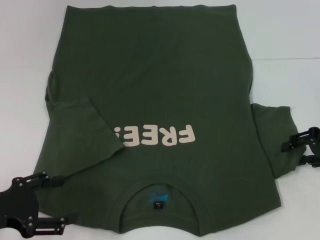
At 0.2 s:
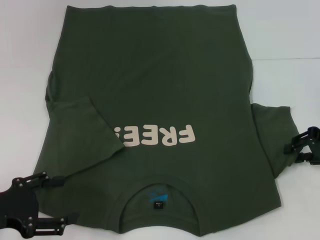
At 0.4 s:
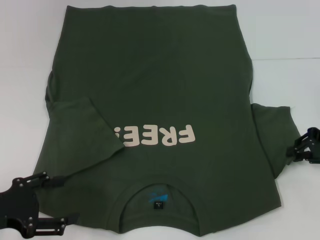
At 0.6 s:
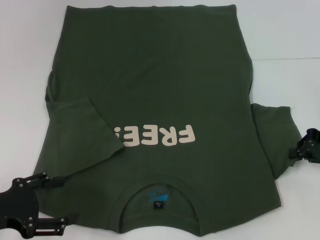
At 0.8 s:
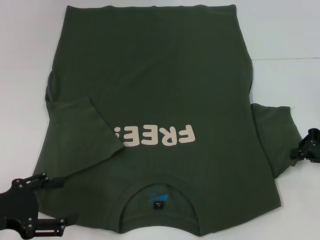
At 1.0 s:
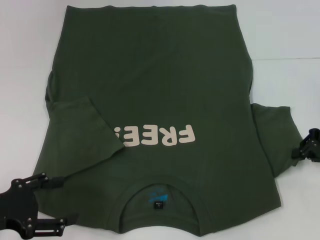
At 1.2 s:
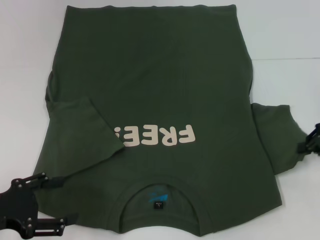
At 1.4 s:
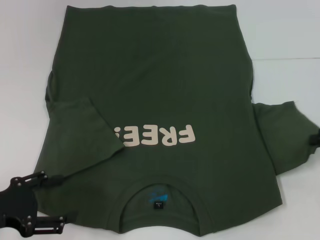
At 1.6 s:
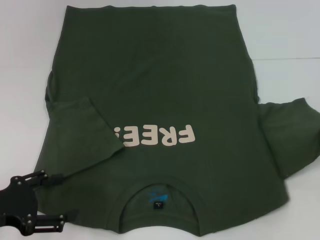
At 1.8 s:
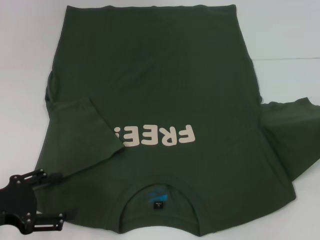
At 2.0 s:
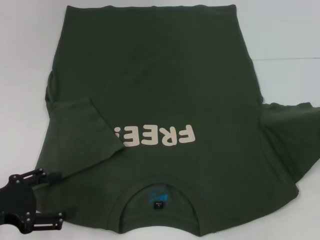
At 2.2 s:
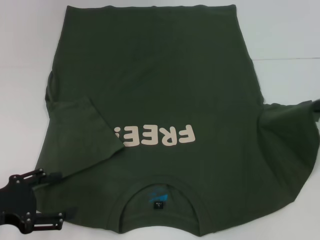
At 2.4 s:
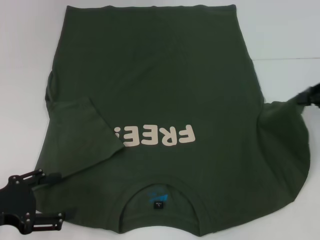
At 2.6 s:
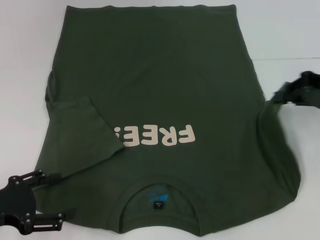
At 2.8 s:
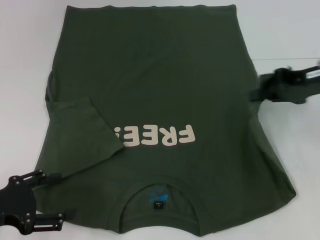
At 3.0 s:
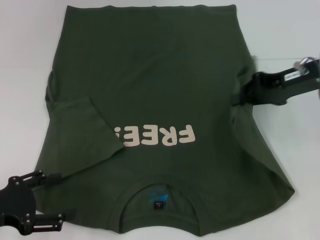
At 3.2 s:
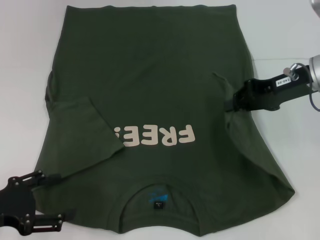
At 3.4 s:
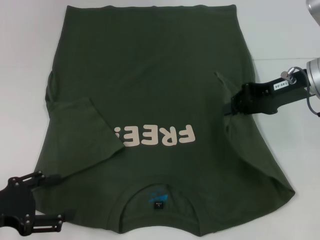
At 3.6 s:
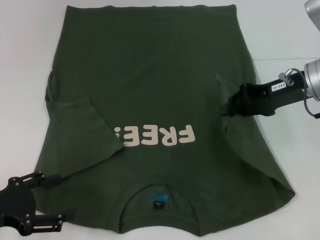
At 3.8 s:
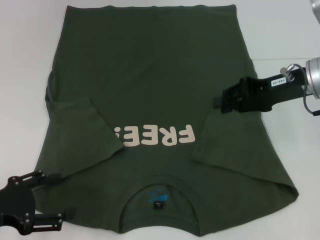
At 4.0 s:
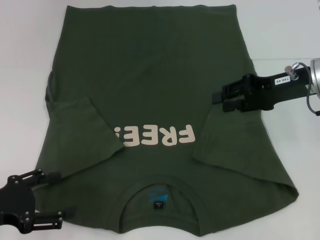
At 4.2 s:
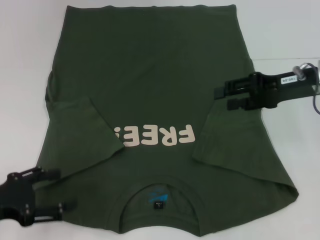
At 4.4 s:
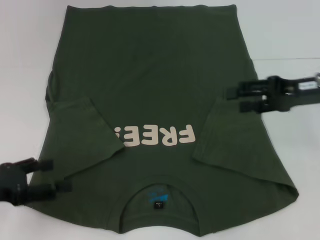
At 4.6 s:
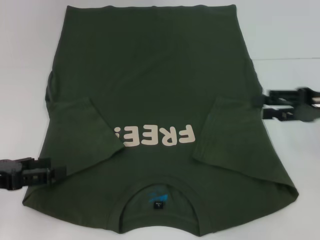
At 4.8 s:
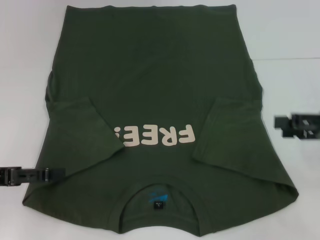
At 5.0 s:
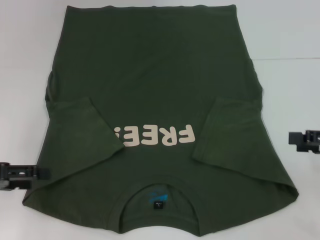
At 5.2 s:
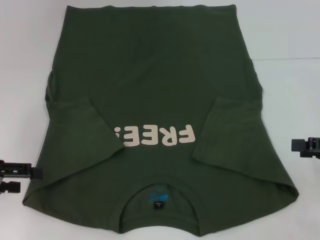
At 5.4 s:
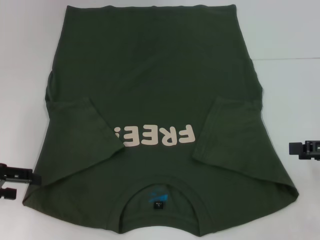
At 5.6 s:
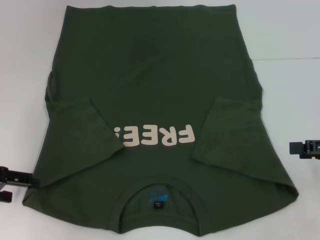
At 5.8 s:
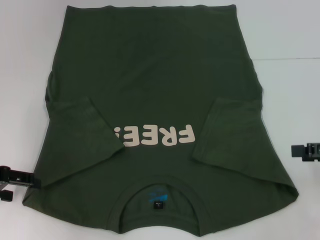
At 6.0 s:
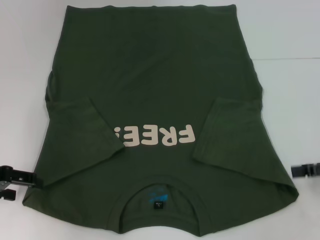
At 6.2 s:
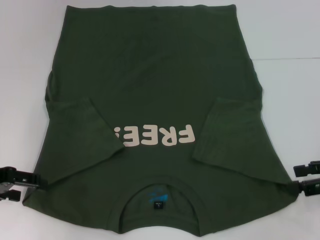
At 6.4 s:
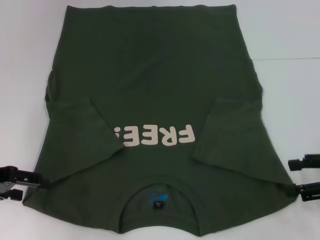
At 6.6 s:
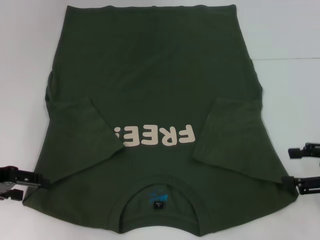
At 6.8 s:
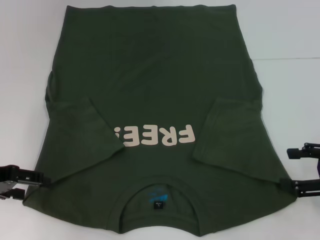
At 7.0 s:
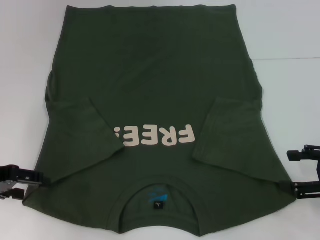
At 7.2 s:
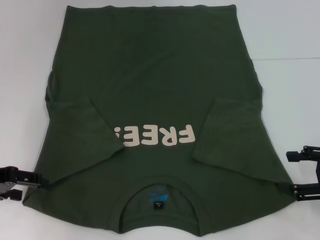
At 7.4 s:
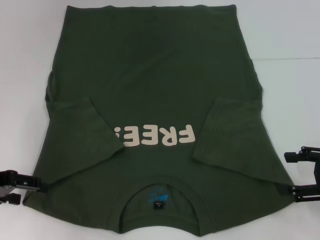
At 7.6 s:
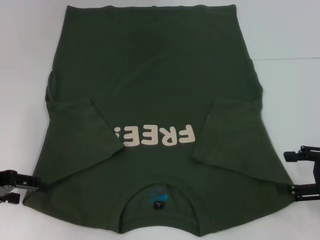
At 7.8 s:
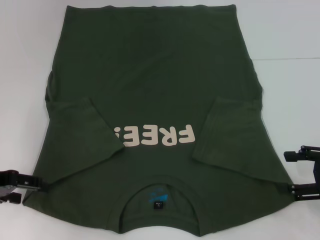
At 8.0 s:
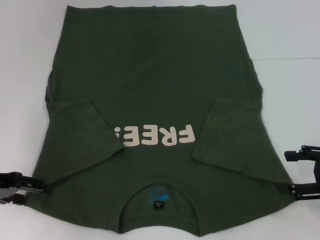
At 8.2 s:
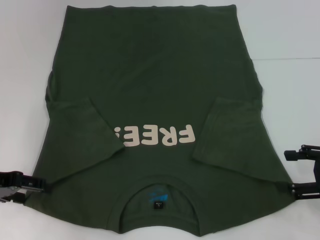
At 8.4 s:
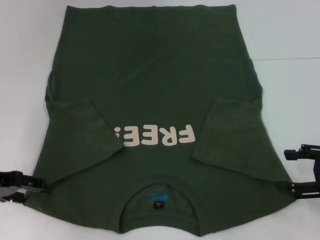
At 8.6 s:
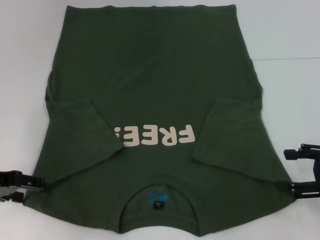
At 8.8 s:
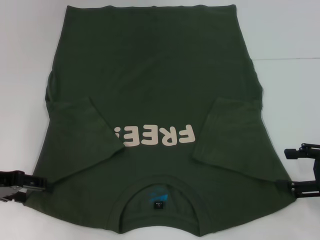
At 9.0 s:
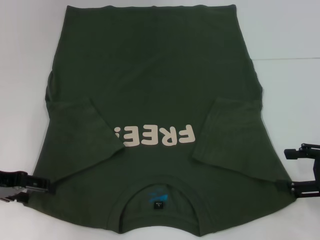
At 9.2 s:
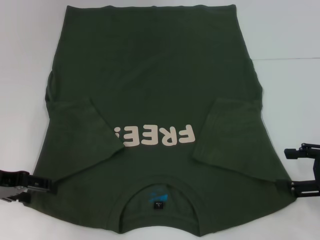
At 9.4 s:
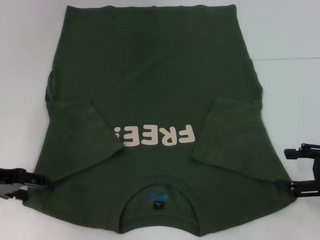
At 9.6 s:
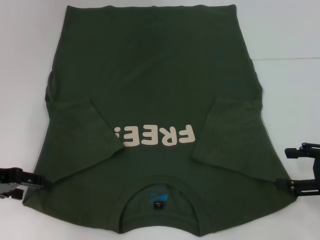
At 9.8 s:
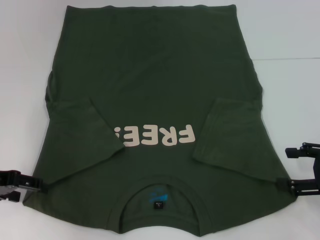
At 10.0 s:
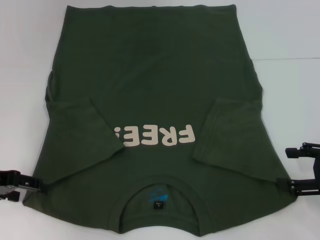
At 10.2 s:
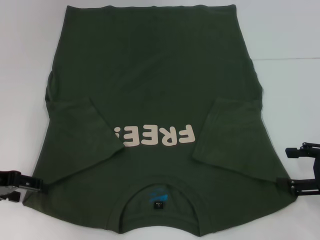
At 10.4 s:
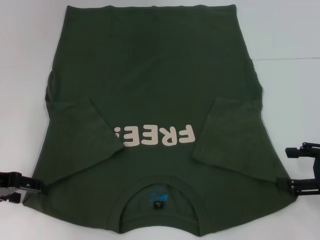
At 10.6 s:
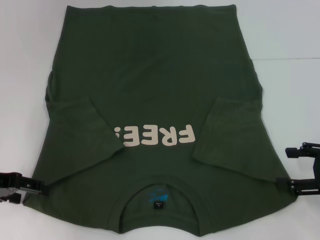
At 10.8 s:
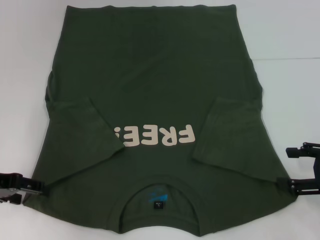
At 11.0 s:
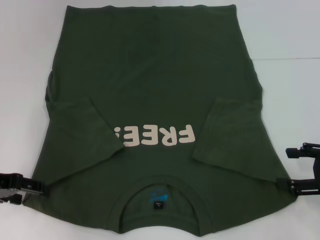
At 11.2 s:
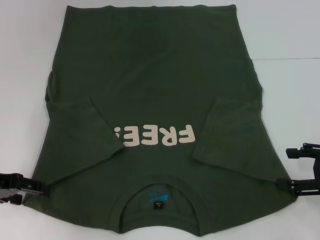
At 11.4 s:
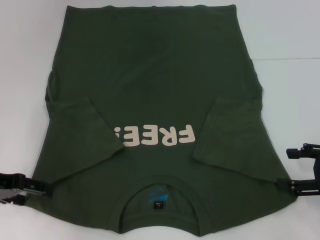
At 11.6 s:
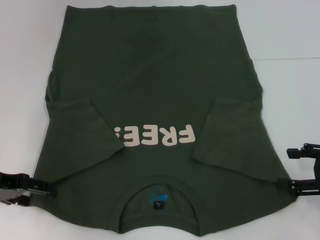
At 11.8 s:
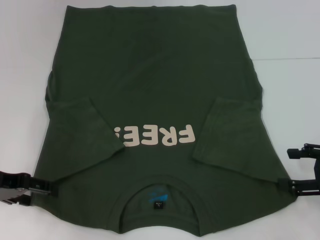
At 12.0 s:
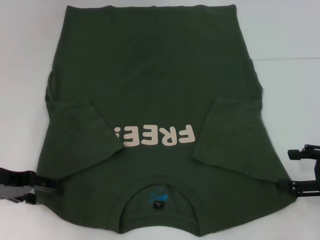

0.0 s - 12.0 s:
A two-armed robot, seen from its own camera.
Step, 0.0 s - 3.6 s: Fold the bottom right sleeve with your right hand.
0.0 s - 1.6 s: The right gripper changes place by about 5 cm, and closes its fingers.
1.6 s - 3.0 s: The right gripper goes some 15 cm to the left and forward.
3.0 s - 4.4 s: The right gripper opens up.
4.4 s - 6.0 s: The right gripper heads to the right and backward, covering about 10 cm; the left gripper goes some 5 cm forward.
7.6 s - 9.0 s: The grippers stay close to where they were, moving slightly.
9.0 s - 10.4 s: Both grippers stay put.
10.4 s - 12.0 s: The grippers move only a little.

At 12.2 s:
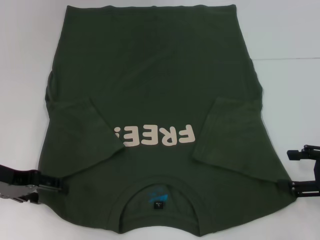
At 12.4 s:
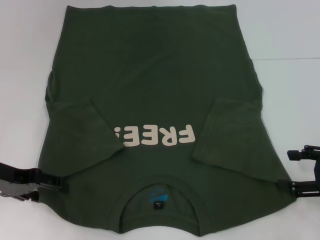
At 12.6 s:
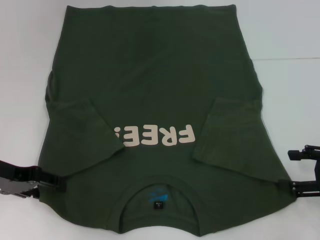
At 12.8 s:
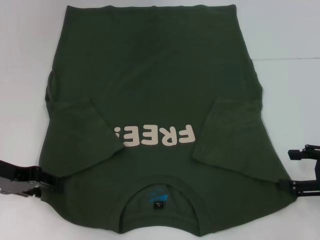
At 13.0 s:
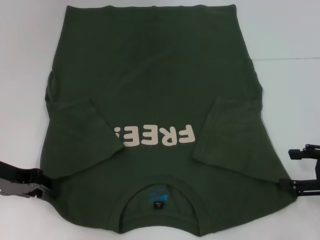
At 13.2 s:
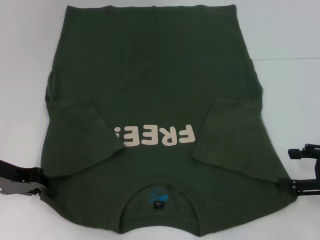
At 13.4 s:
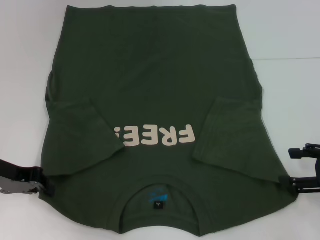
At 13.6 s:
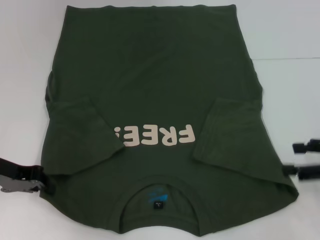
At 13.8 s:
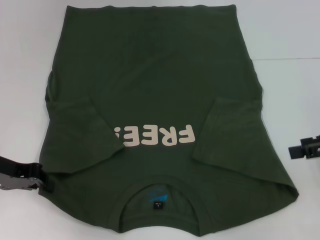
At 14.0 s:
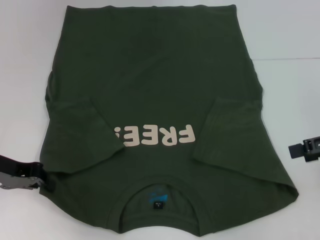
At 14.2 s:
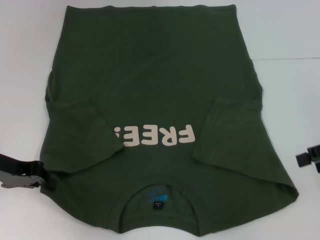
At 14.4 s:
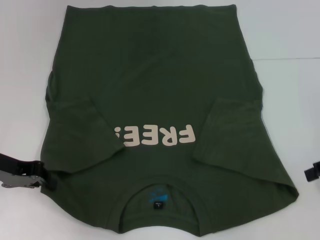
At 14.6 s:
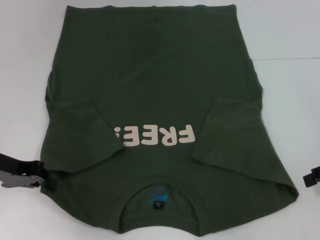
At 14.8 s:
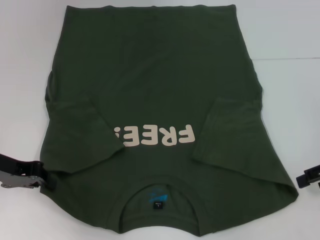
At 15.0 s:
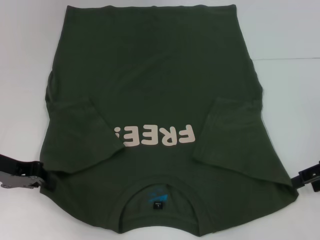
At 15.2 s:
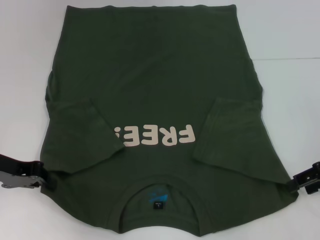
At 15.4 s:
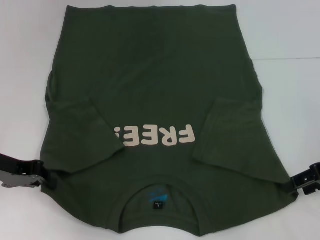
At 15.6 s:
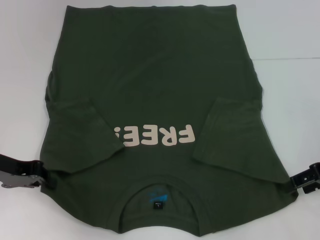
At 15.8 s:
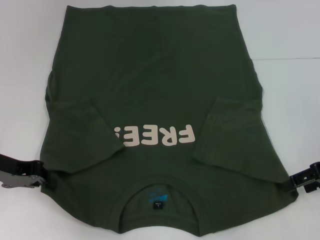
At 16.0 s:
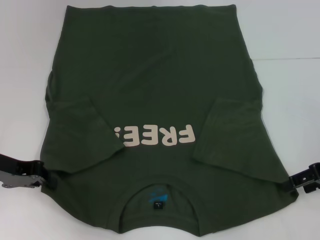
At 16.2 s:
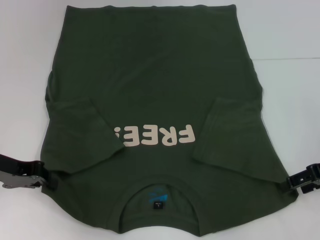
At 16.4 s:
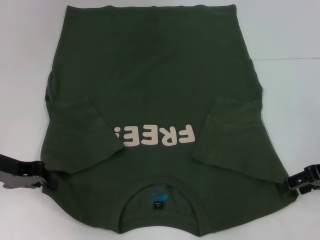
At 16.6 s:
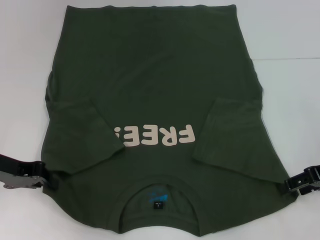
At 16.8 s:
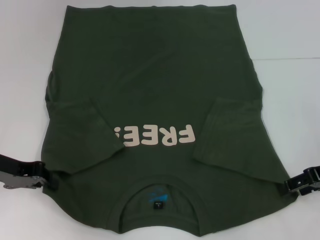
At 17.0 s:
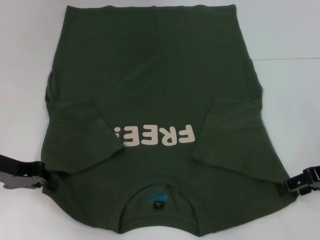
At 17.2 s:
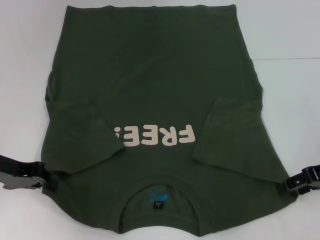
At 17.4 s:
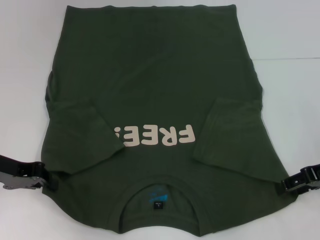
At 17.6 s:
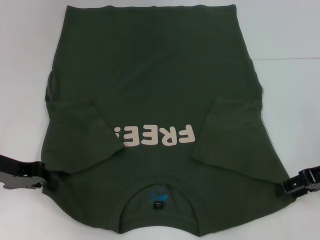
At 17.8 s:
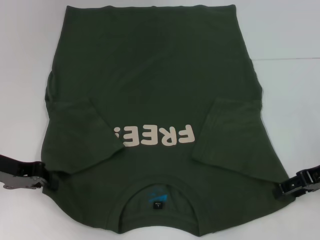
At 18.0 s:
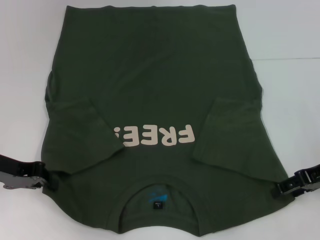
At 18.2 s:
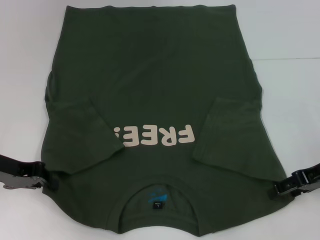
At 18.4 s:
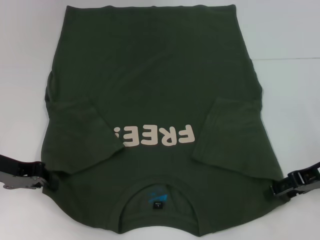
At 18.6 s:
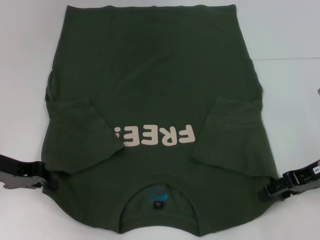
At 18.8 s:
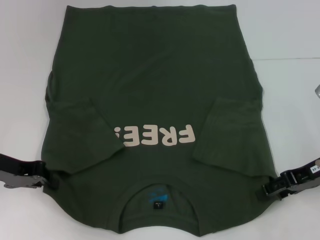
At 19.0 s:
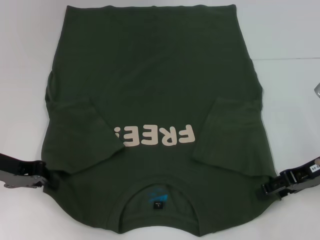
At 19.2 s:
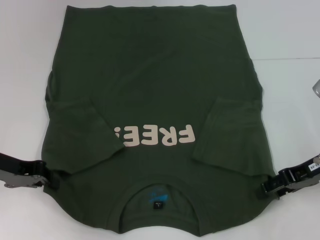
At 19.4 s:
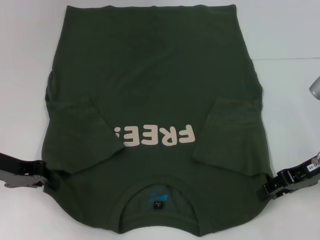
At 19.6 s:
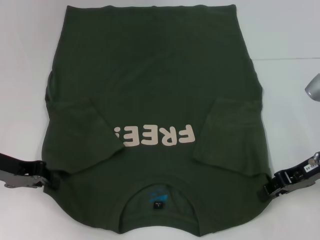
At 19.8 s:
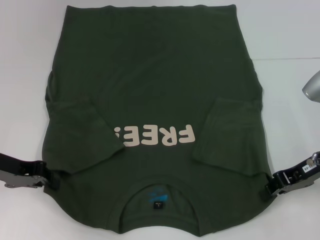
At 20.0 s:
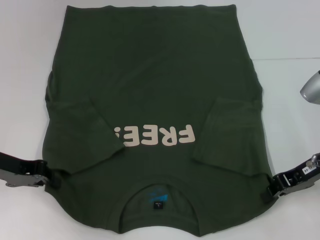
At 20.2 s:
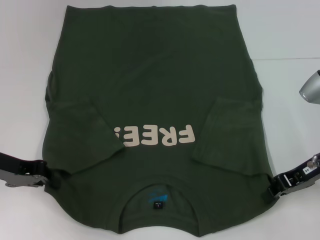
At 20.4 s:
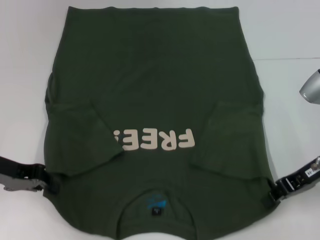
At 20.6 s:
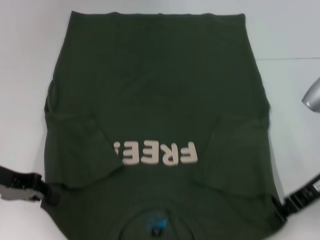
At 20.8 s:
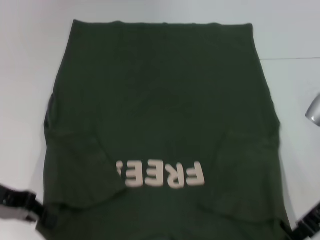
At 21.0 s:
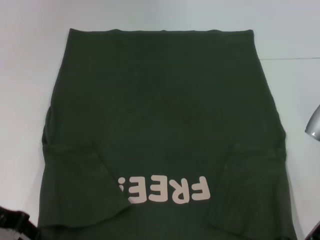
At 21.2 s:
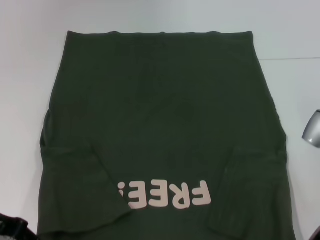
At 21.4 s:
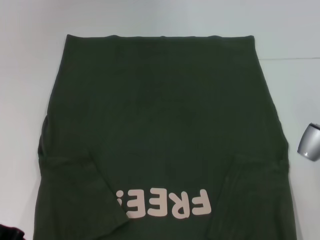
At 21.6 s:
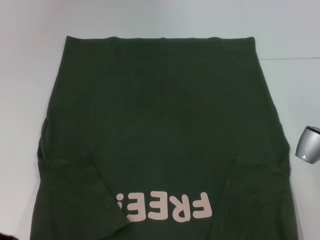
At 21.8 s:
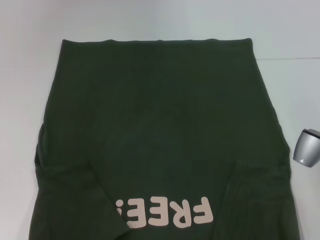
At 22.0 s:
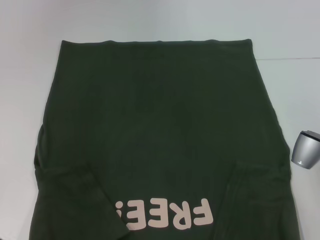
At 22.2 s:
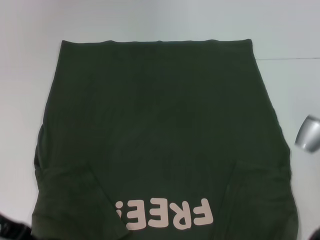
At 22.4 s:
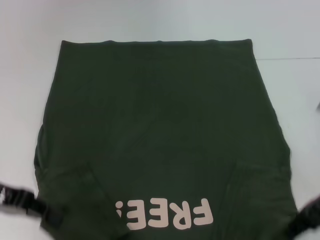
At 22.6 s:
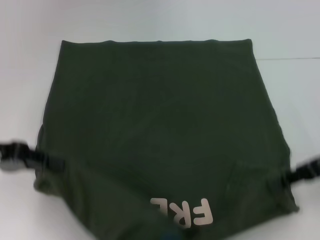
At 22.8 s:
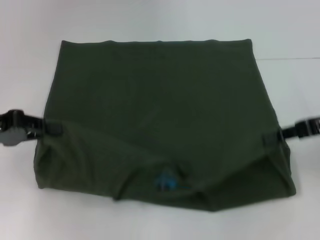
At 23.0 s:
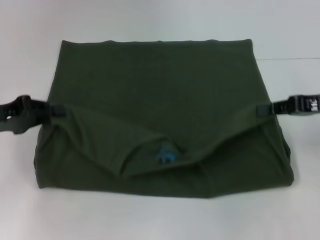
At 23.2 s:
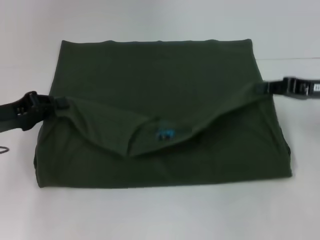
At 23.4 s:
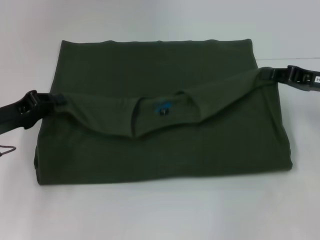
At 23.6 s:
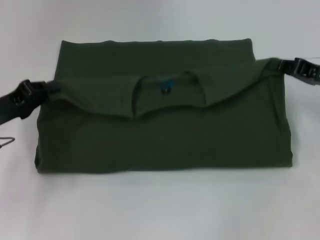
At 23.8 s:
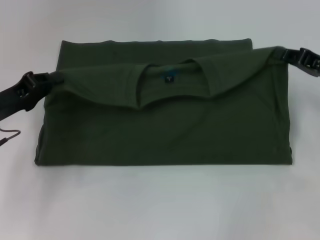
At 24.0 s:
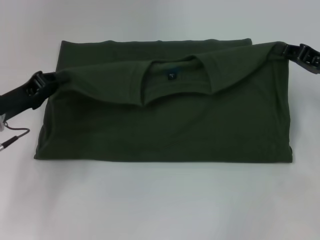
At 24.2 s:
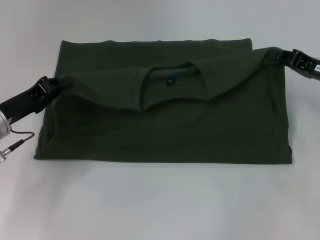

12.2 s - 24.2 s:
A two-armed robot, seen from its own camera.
Step, 13.6 s - 18.8 s: Grab the bottom right corner with your right hand.
12.2 s - 13.8 s: The right gripper goes roughly 5 cm upward, while the left gripper closes up.
16.6 s - 18.2 s: There are only small adjustments of the grippers.
18.2 s - 19.8 s: The right gripper closes up.
19.8 s - 21.2 s: The left gripper is displaced backward by roughly 5 cm. The right gripper closes its fingers.
21.2 s - 22.6 s: The right gripper changes place by about 5 cm.
22.6 s - 24.2 s: The left gripper is displaced downward by approximately 10 cm. The right gripper is displaced forward by some 5 cm.
